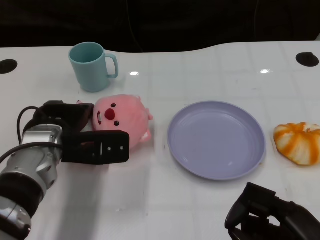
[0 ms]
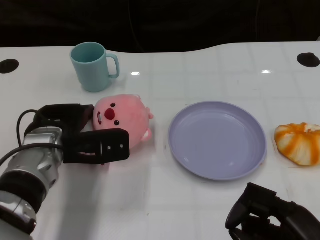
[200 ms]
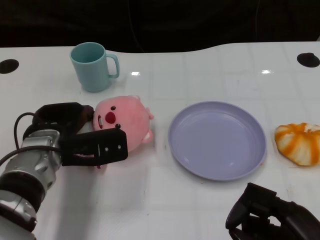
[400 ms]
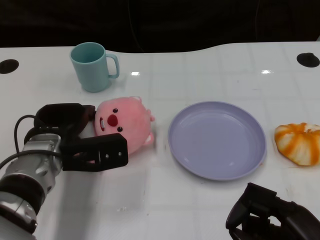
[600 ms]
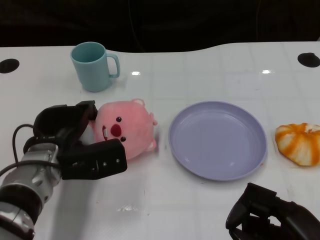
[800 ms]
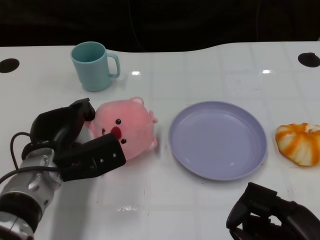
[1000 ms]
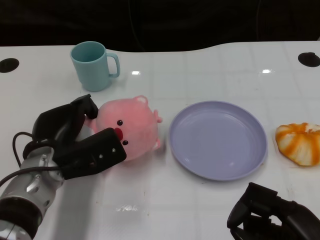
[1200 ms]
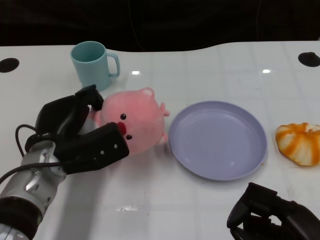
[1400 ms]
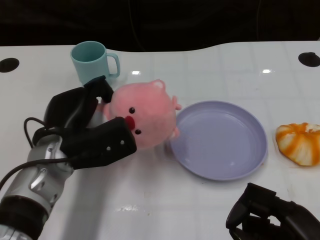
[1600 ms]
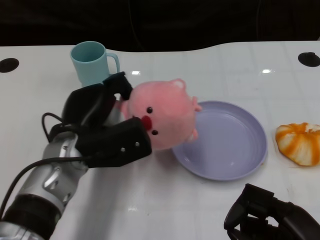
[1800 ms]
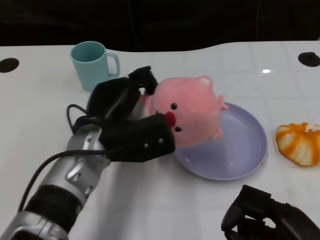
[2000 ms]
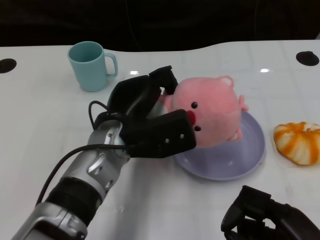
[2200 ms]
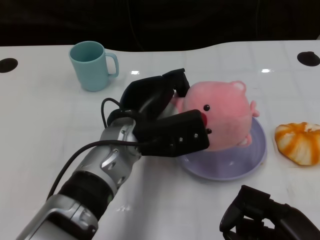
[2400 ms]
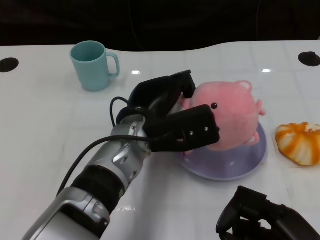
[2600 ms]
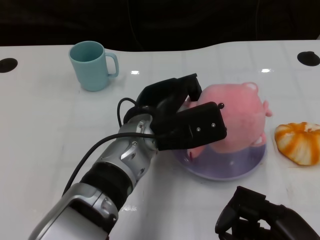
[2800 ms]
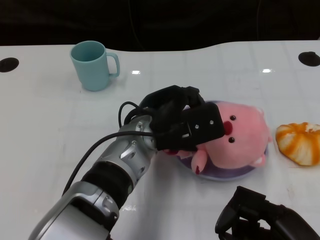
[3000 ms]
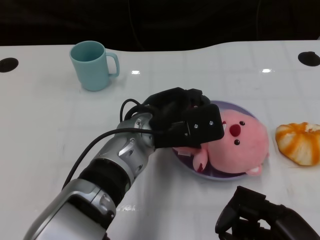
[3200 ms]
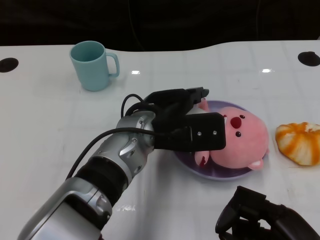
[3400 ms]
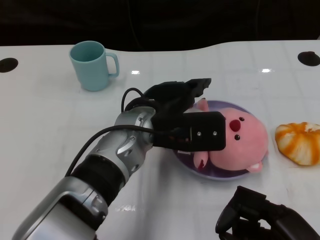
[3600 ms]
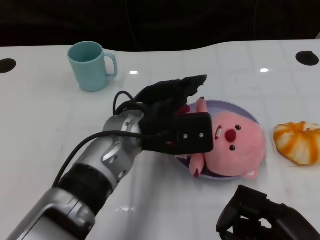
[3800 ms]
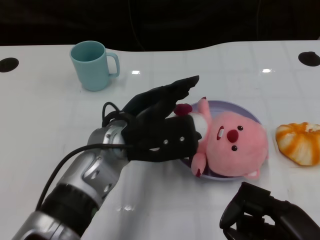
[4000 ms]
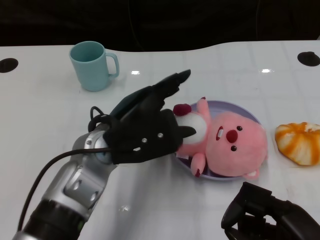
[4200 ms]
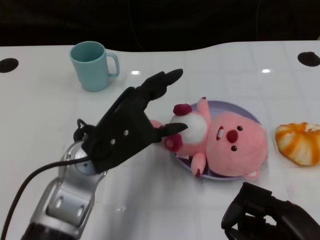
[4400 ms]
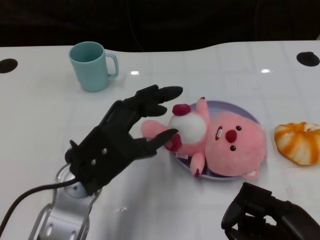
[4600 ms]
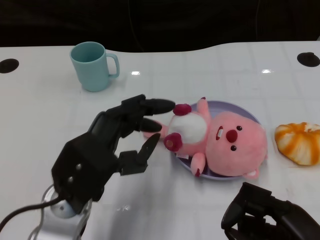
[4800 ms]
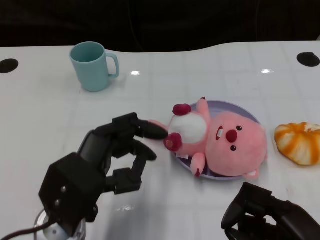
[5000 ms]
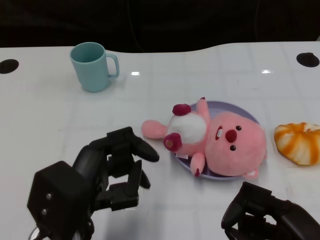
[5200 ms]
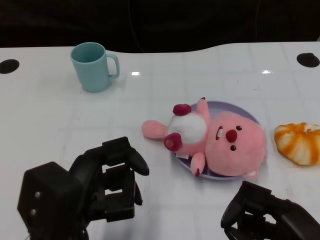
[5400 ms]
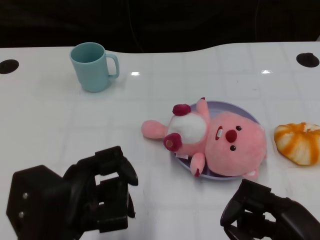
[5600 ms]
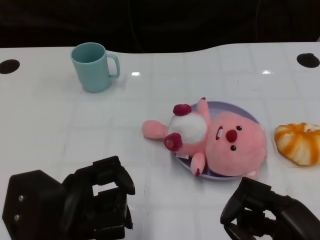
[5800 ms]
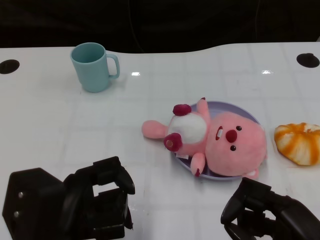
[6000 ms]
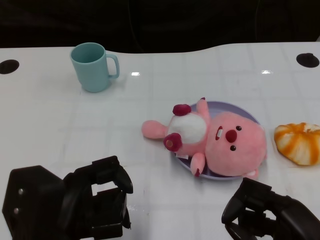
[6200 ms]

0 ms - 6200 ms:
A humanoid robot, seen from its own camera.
Task of the whole recording: Pick up the doll on one side of the plate and place it into the plate.
Step, 1400 ms - 3800 ms: Place the pink doll into the plate with the left gripper.
1600 ms - 3200 ms: The left hand goes about 15 cm to the right.
3200 ms - 4600 ms: The left hand moves to the left and backward, about 10 cm.
4600 ms - 6200 ms: The left hand moves backward, some 10 cm.
